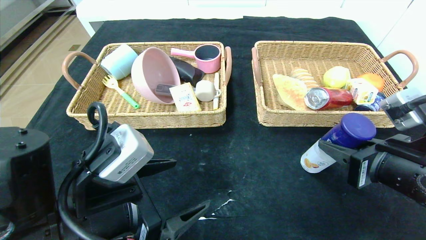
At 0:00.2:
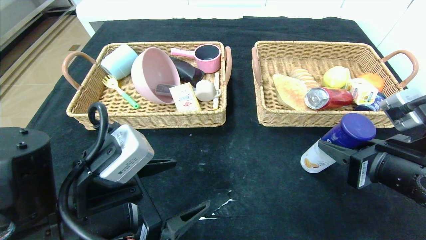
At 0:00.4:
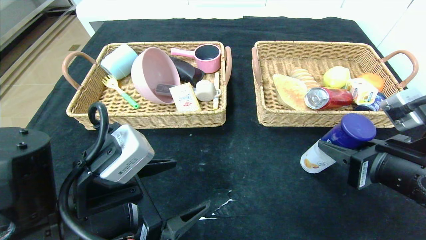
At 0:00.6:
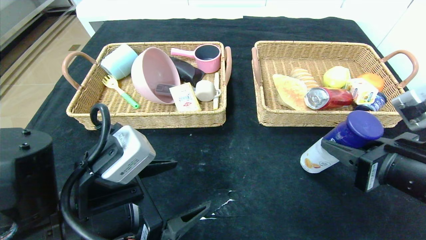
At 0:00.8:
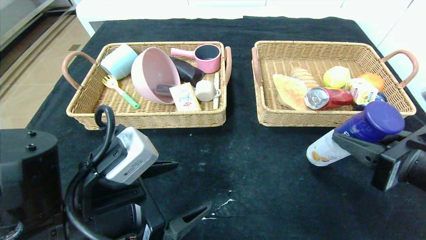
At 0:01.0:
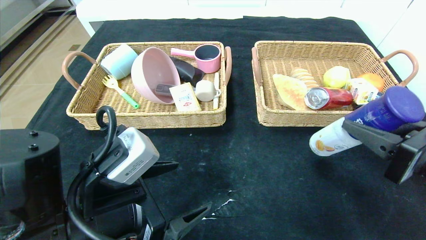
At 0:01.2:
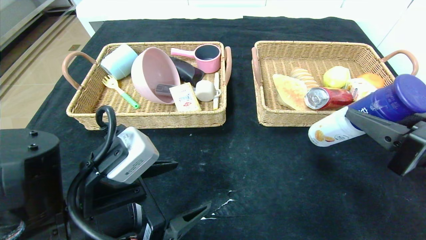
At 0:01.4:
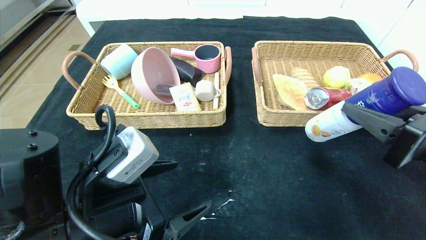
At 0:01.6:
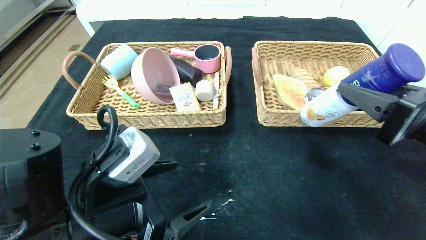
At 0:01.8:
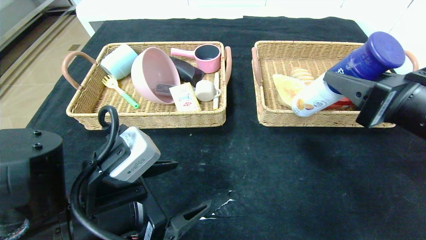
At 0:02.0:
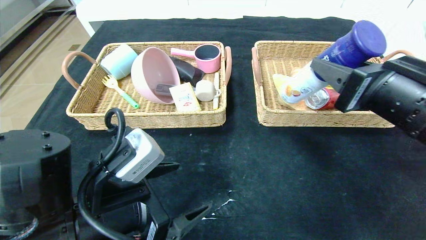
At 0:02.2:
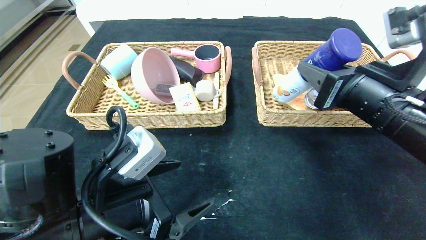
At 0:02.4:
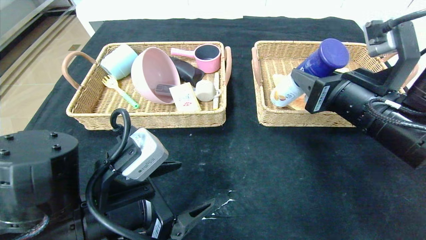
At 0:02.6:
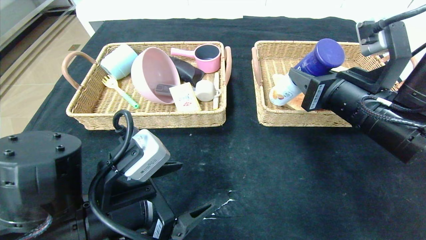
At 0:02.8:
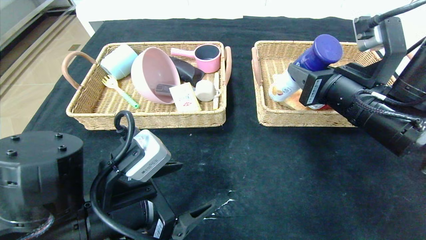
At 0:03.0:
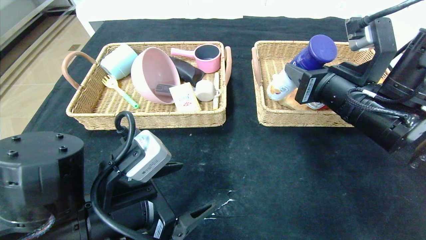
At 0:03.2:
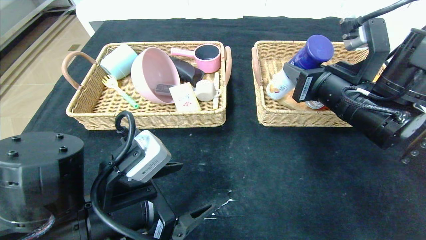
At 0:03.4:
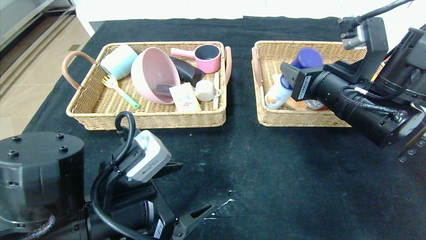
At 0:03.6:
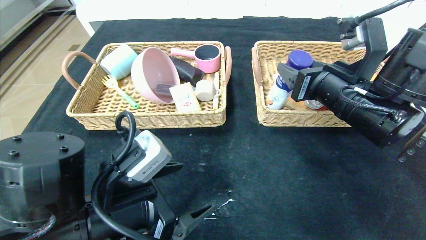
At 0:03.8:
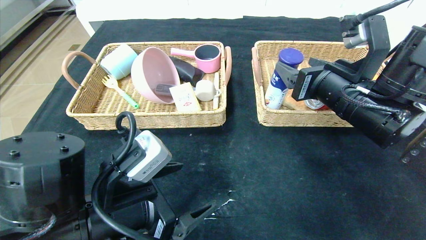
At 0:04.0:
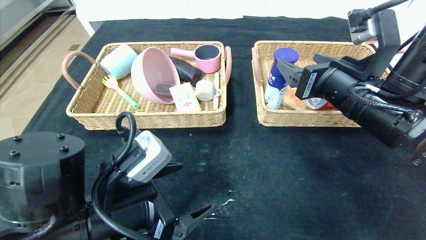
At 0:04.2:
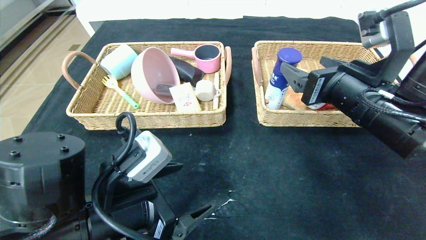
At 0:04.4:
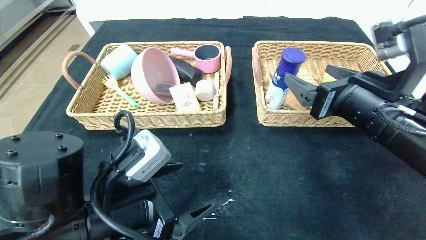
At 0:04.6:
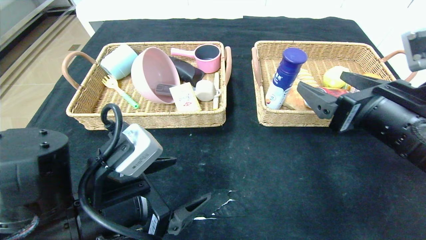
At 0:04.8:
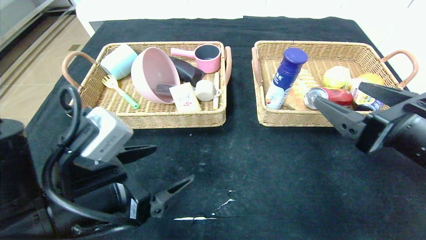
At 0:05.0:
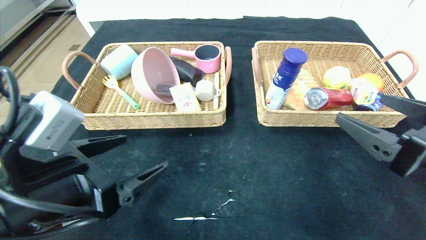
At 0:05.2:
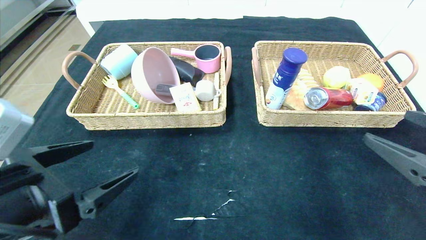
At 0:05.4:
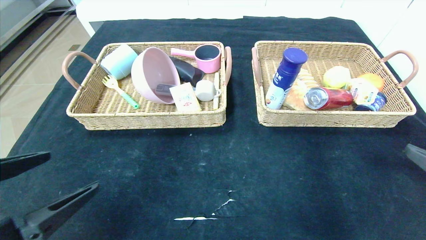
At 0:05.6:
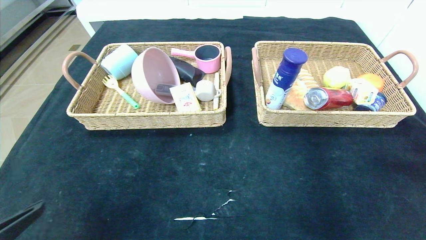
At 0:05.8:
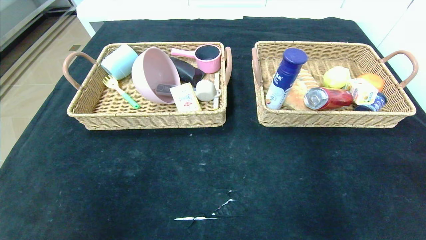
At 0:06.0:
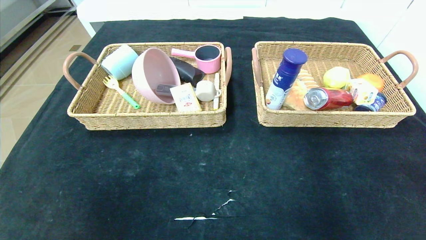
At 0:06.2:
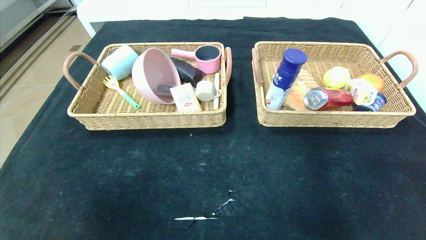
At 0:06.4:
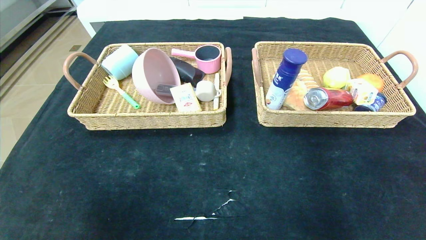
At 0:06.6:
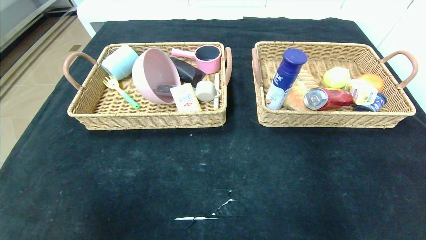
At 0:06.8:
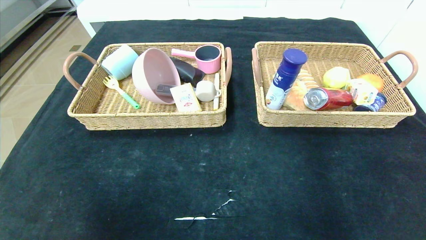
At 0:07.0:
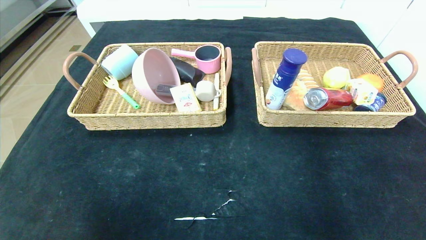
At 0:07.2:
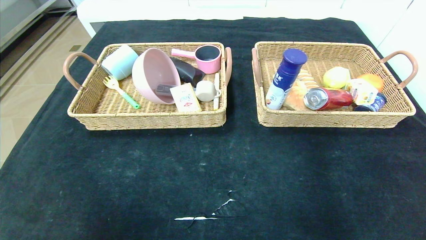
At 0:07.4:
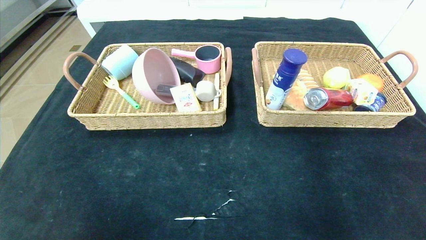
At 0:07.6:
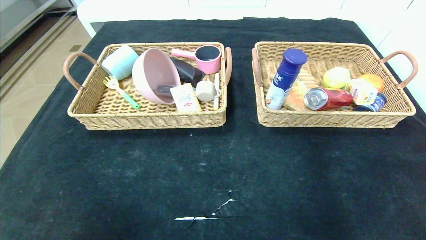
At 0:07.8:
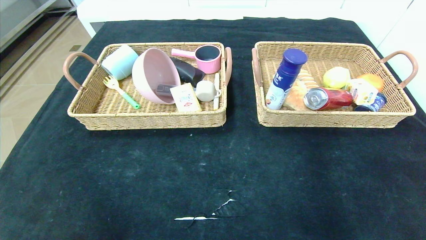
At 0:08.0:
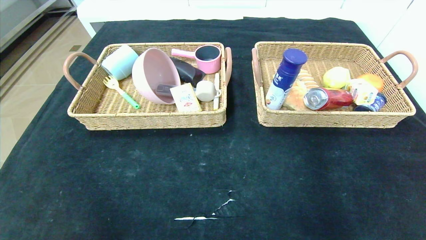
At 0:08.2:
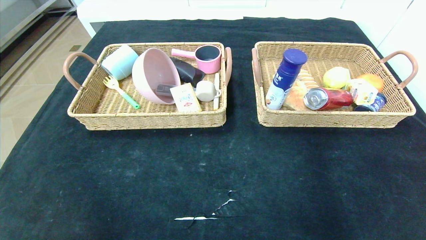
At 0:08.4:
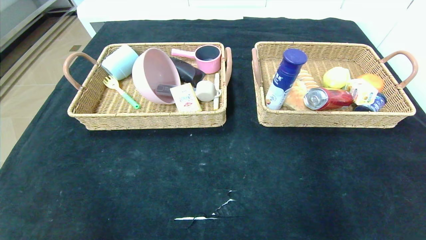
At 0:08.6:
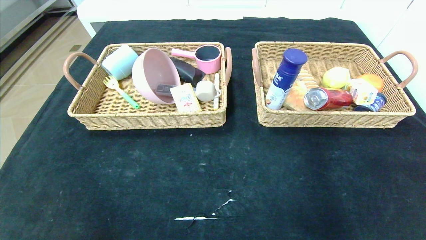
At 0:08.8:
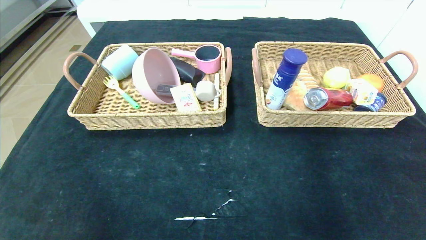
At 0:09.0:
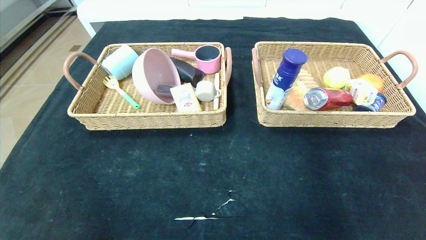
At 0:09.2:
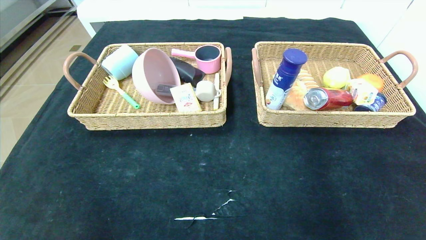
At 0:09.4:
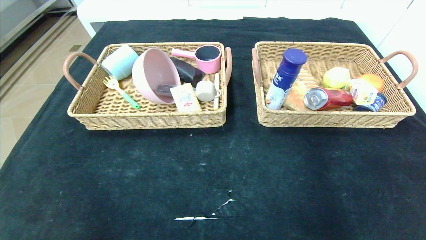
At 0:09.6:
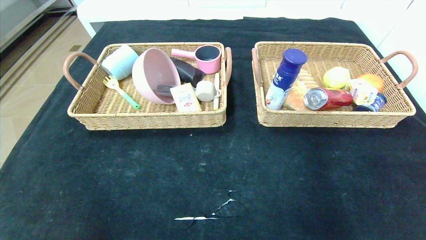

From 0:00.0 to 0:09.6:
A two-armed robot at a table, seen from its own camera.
Step, from 0:00.0 to 0:04.0: Grasp the yogurt and put it in the right basket.
From 0:00.0 to 0:01.6: The right gripper goes roughly 5 cm upward.
From 0:01.6 to 0:03.2: The right gripper goes about 10 cm forward and to the left.
From 0:03.2 to 0:04.8: The right gripper moves backward and to the right, some 10 cm, and opens its fingers.
From 0:04.8 to 0:06.4: The right gripper travels backward and to the right by roughly 25 cm; the left gripper shifts approximately 25 cm backward and to the left.
